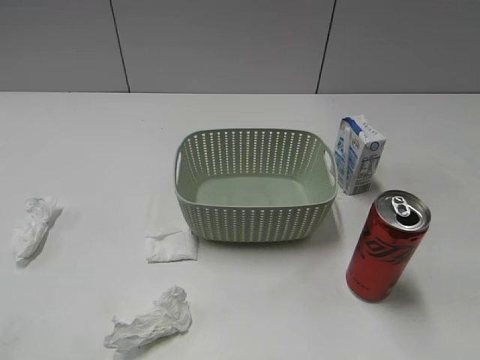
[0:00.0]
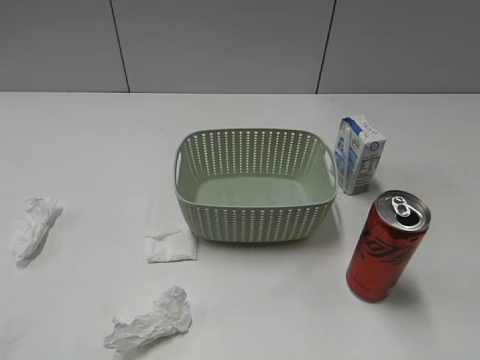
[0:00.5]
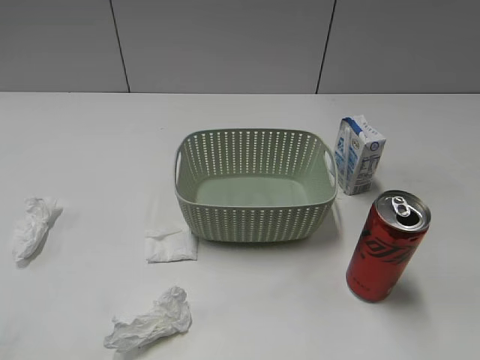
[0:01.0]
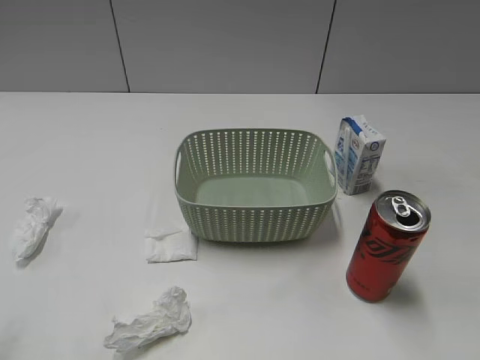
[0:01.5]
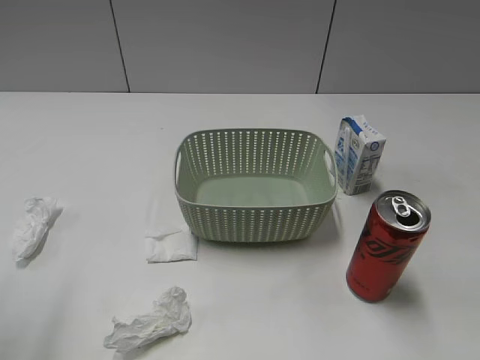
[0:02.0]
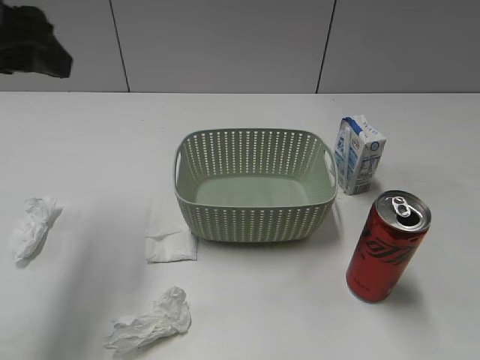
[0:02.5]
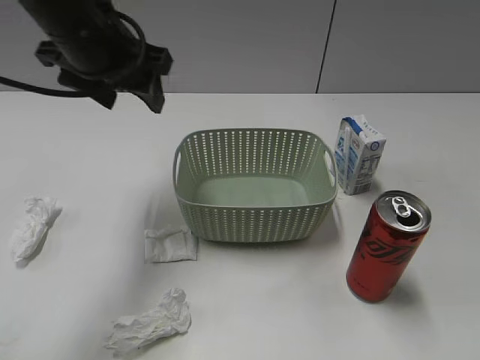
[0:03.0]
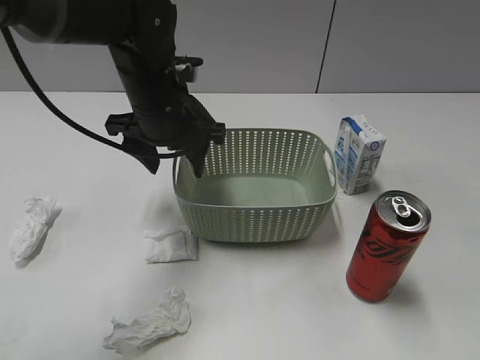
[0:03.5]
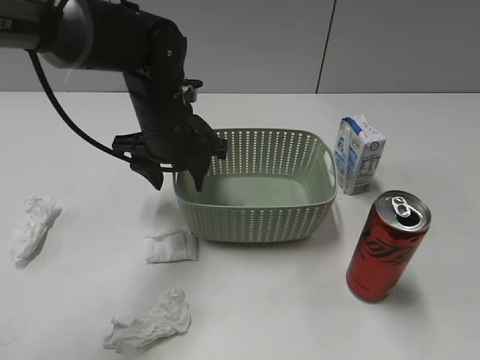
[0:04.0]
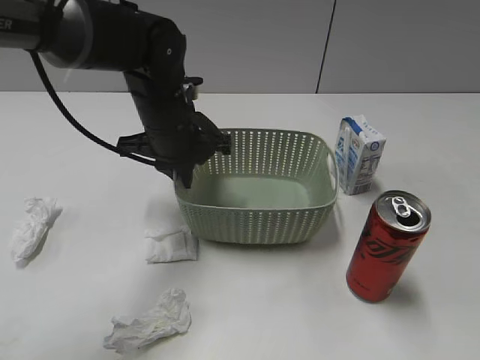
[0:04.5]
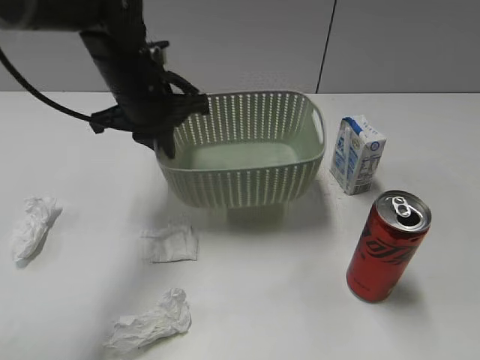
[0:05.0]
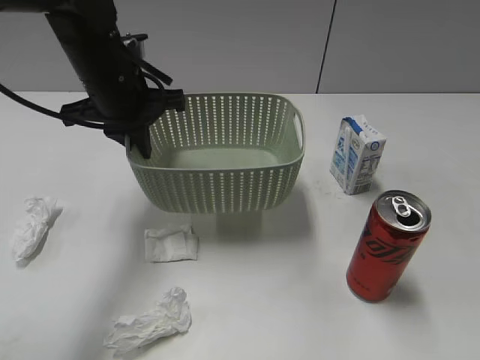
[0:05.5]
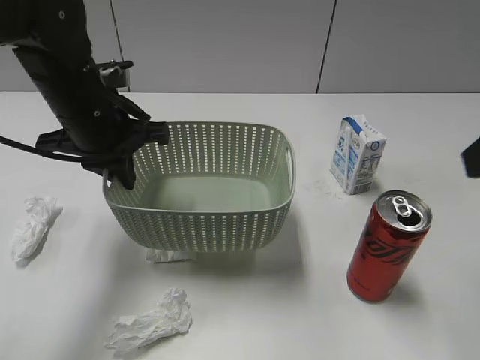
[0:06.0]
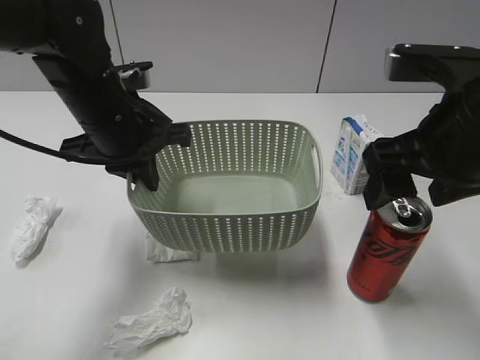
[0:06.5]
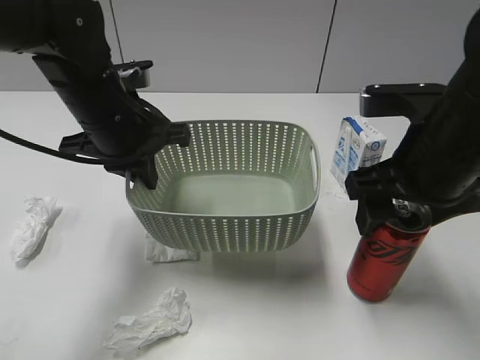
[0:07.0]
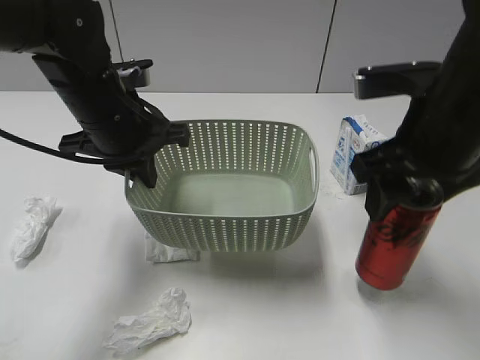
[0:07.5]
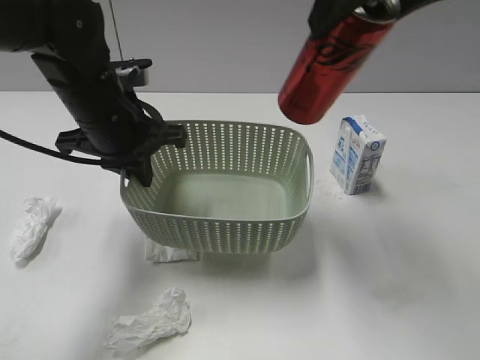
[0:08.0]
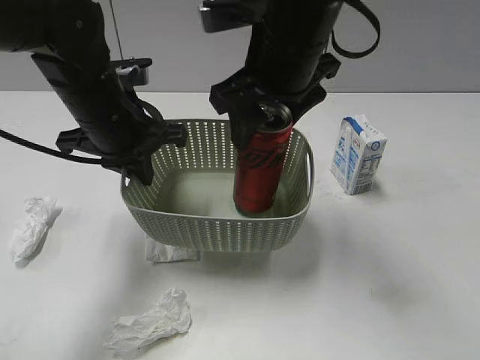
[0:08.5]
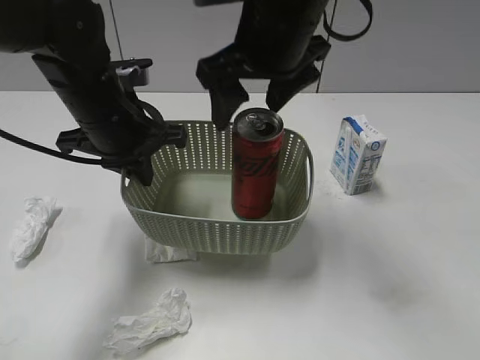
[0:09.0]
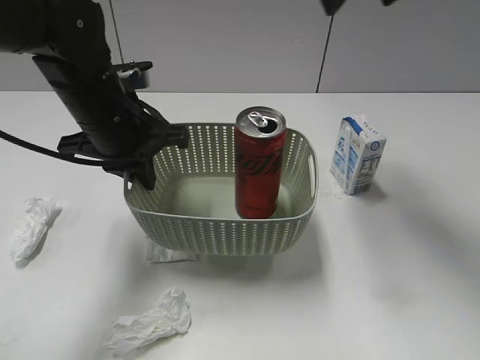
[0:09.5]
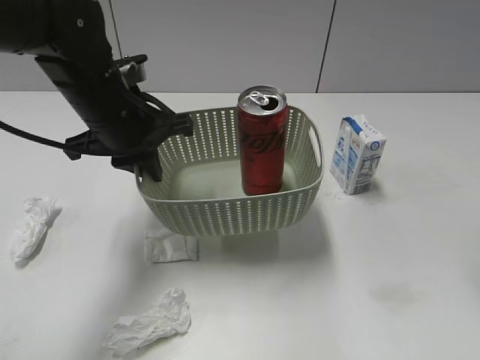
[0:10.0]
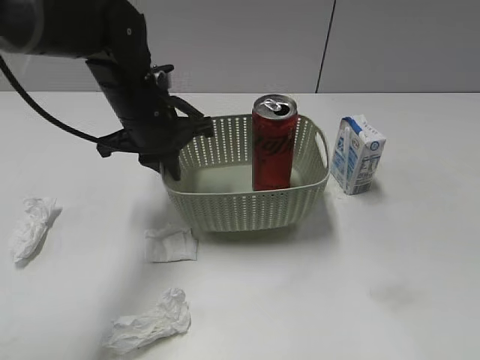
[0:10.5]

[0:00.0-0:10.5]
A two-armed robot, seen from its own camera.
Step, 0:02.5 to 0:04.5: Grasp the basket with left gripper.
Step, 0:05.0 to 0:05.5: Lift the basket with left gripper.
Step, 0:06.0 to 0:07.0: Grasp the cola can with right gripper.
Step, 0:07.5 to 0:09.0: Place the cola can in the basket with right gripper.
0:02.0 to 0:04.0: The left gripper is displaced forward, to the right and downward by some 35 cm.
0:04.0 to 0:06.5: The right gripper heads forward and to the left, covering approximately 25 cm, and opens up. Meanwhile the left gripper ends up roughly 10 cm from where it was, and closes up.
0:06.5 to 0:08.5: The right gripper moves up and down over some 15 cm, changing direction 2 times, and closes.
0:08.5 to 0:10.5: The left gripper moves some 5 cm; the right gripper goes roughly 40 cm backward and to the right, and opens.

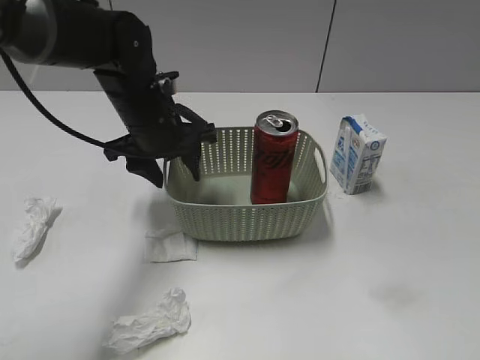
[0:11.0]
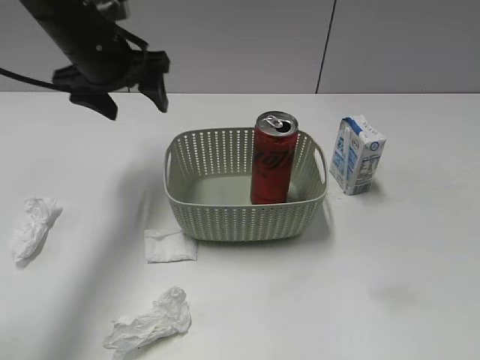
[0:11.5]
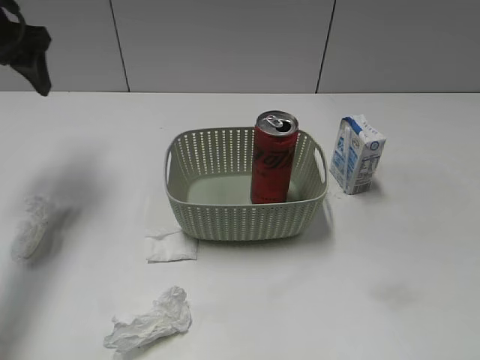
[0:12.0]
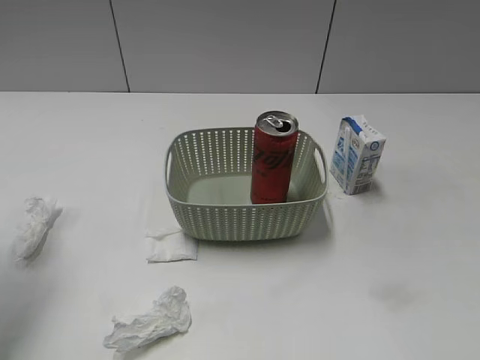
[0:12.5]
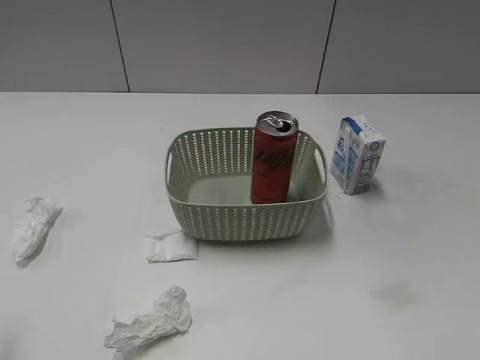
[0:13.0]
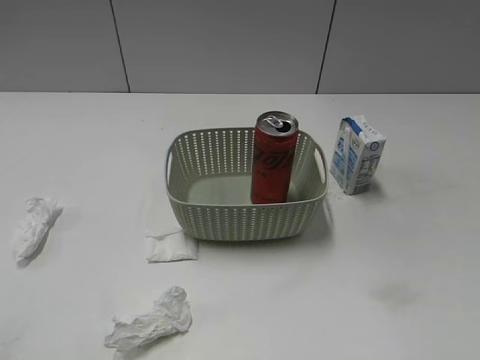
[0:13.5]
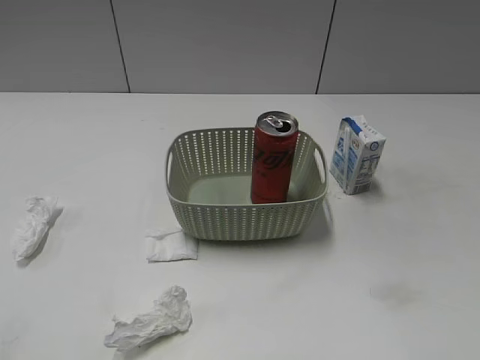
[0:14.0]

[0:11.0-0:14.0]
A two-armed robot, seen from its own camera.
0:11.0 to 0:12.5: The left gripper shifts some 30 cm to the left, backward and upward.
0:12.5 to 0:14.0: The left gripper heads backward, covering roughly 25 cm.
